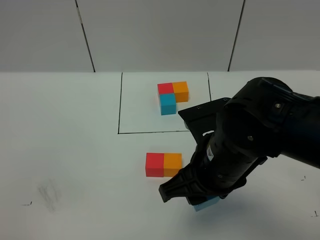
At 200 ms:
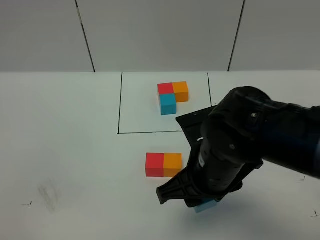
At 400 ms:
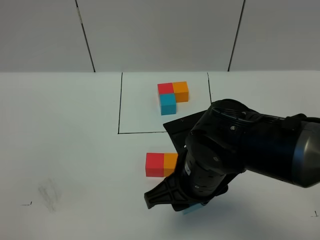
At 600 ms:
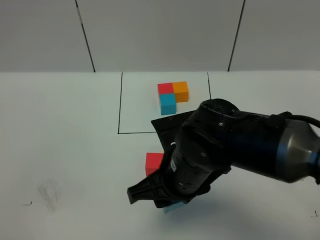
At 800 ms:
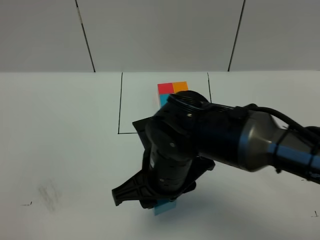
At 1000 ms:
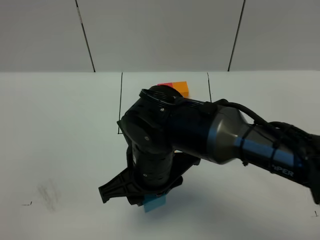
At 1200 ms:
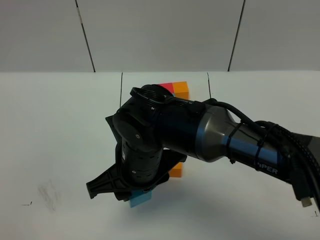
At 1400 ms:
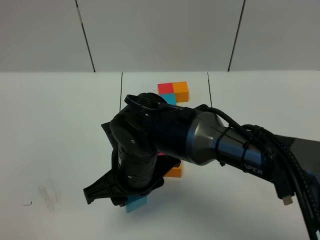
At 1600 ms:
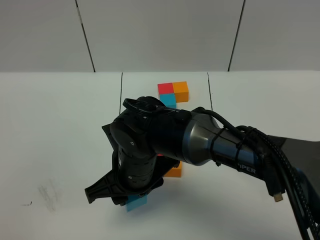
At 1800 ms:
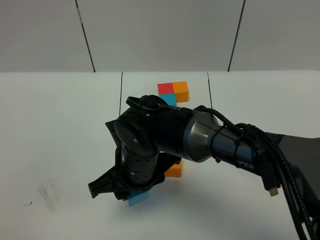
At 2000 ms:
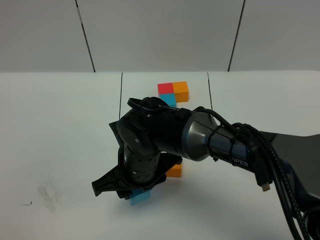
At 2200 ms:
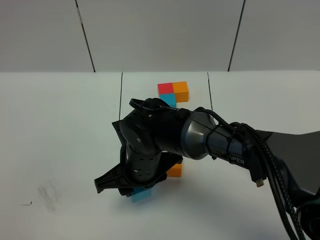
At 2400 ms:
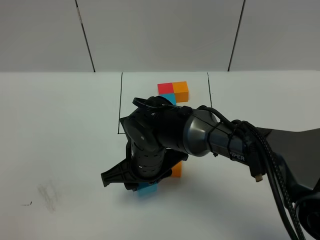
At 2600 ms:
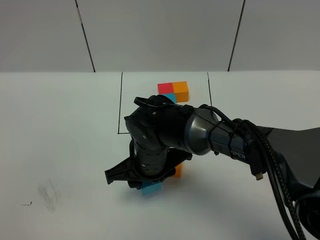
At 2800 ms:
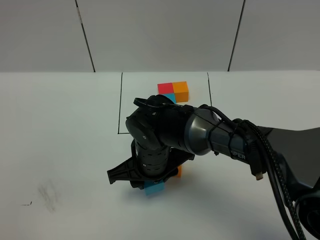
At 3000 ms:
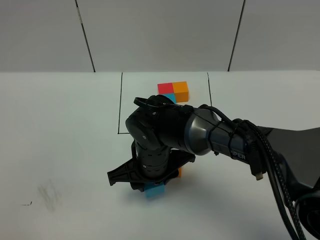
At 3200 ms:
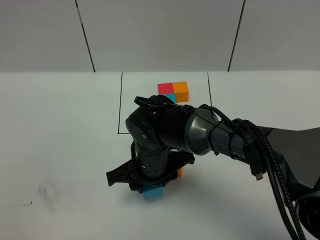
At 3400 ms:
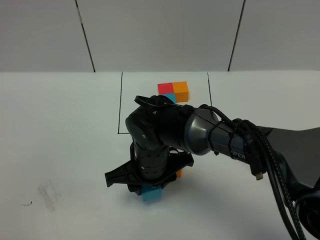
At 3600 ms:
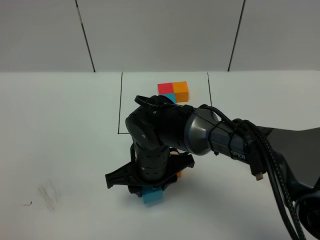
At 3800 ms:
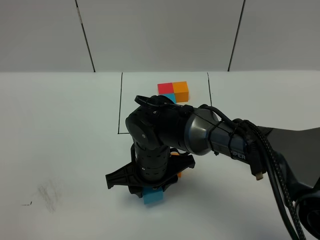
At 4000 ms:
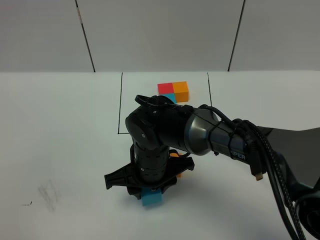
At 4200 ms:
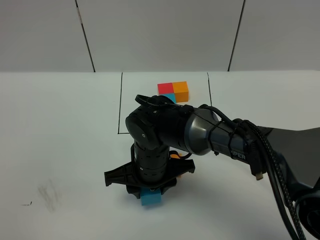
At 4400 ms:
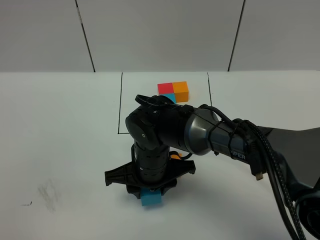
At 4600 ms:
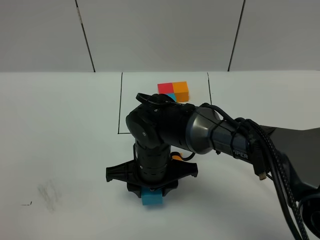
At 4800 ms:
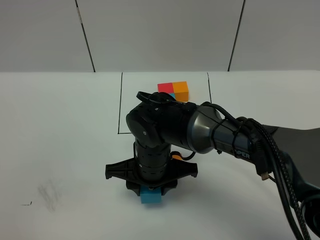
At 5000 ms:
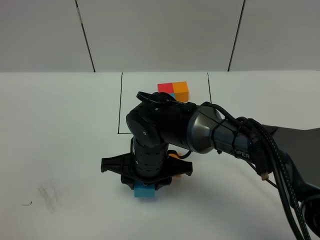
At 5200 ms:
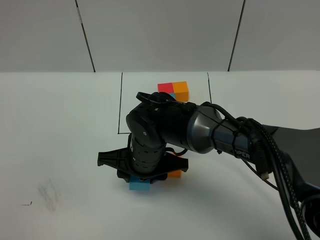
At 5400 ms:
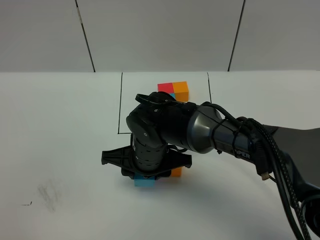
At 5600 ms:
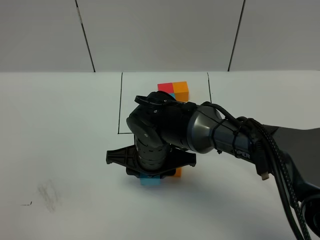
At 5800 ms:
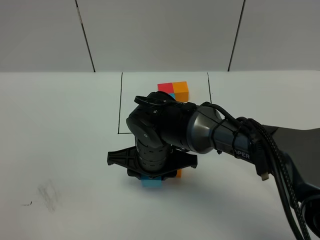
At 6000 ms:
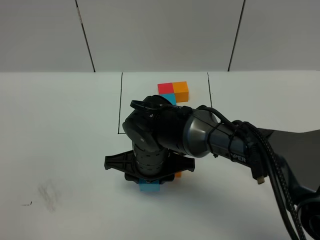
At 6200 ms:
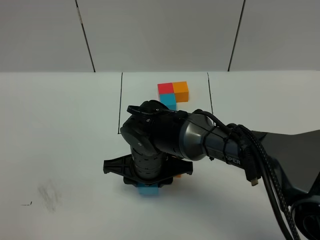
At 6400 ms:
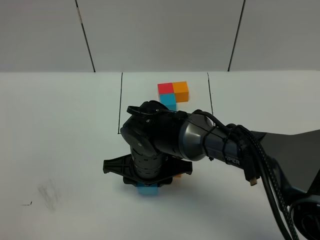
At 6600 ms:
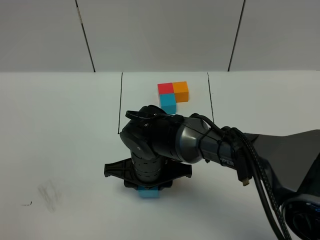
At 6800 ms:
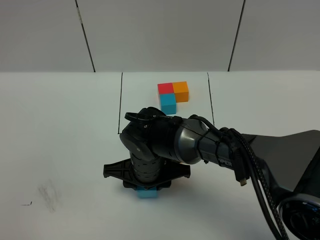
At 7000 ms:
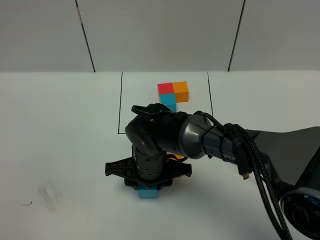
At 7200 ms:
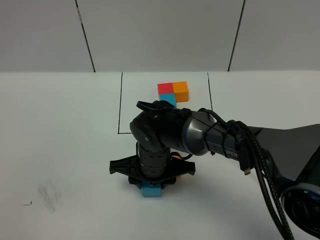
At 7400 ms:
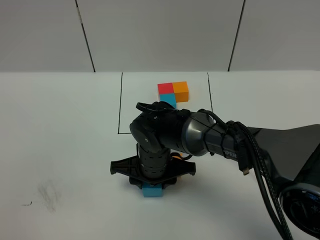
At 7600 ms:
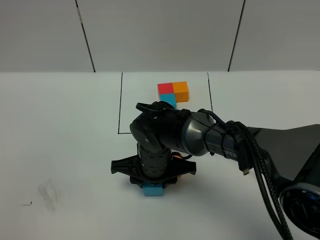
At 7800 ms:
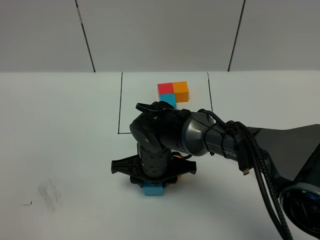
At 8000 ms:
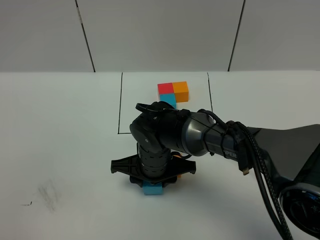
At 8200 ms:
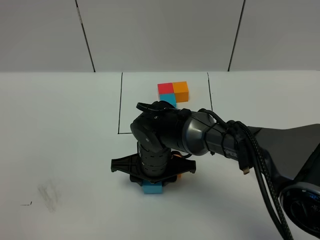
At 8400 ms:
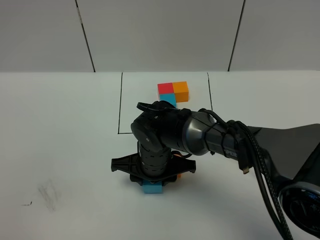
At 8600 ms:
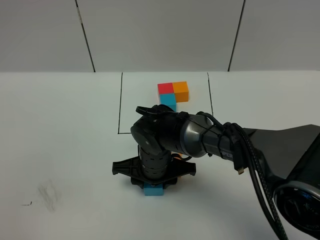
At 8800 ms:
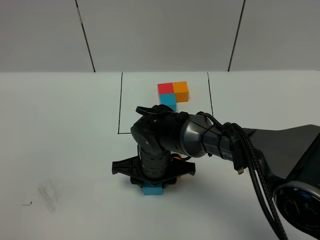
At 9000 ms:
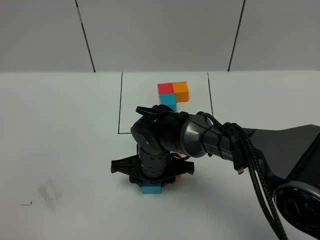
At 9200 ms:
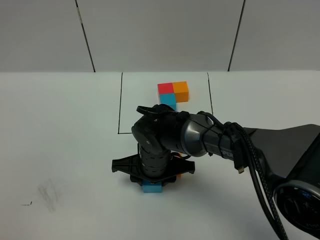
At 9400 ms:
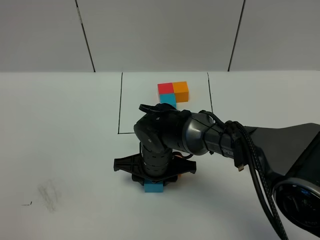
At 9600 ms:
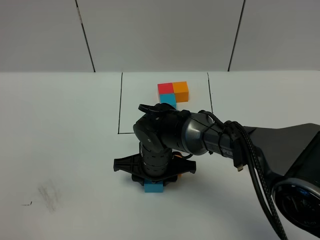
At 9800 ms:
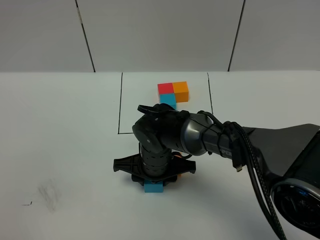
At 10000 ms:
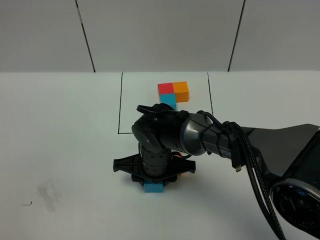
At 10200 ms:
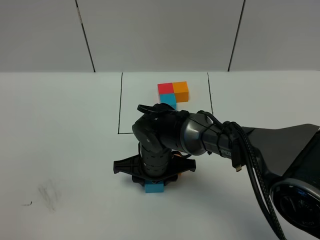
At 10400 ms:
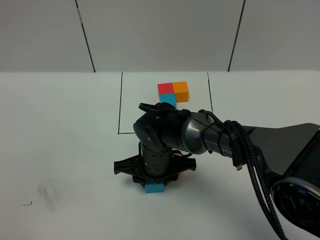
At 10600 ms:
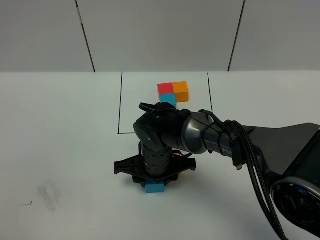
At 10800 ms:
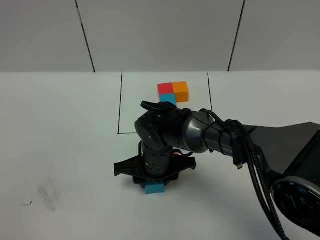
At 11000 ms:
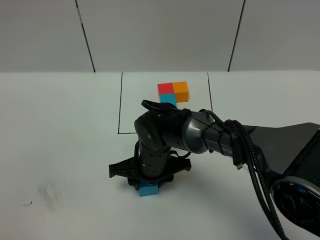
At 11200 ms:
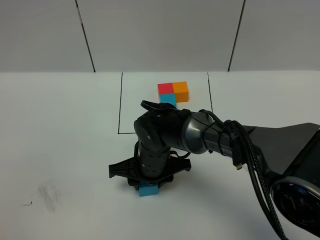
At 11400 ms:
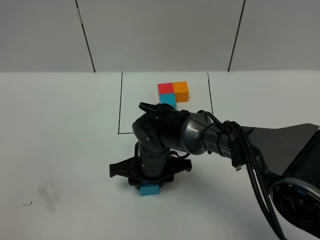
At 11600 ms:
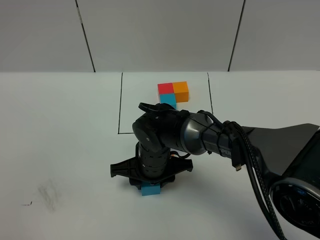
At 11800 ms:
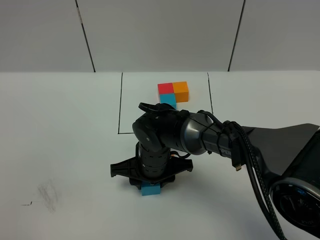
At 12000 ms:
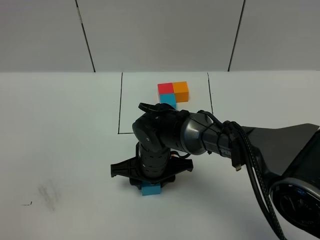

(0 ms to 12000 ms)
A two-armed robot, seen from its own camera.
Task of the whole recording: According to the building block template in front, assemble the scattered blocks together.
0 ms - 1600 ms: The right gripper goes about 15 cm to the left and downward.
1600 ms - 3000 ms: The right gripper changes place by approximately 5 cm.
3000 ms - 7600 ms: The grippers stay close to where they were, moving slightly.
7600 ms - 9000 ms: Neither gripper changes place.
9000 ms - 10400 ms: Both grippers stay put.
10400 ms - 12000 ms: The grippers make only small movements.

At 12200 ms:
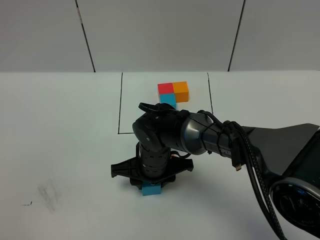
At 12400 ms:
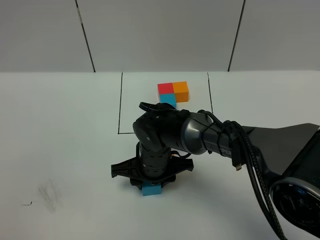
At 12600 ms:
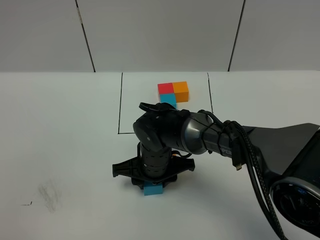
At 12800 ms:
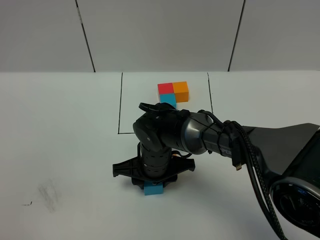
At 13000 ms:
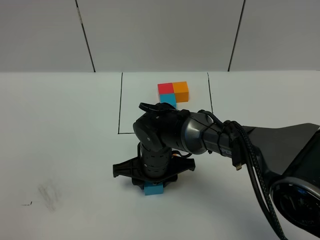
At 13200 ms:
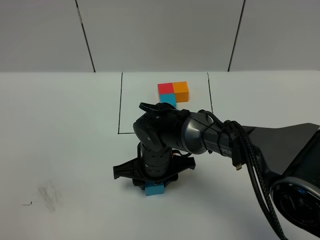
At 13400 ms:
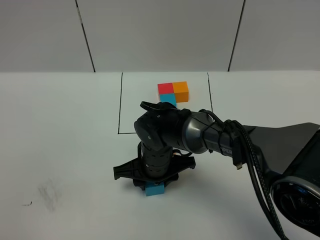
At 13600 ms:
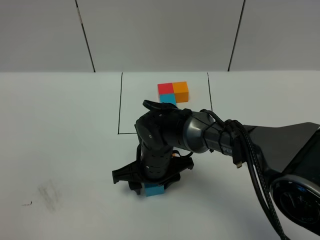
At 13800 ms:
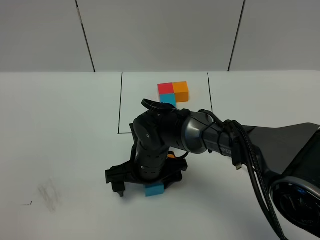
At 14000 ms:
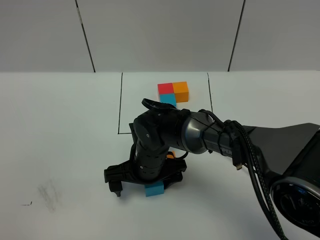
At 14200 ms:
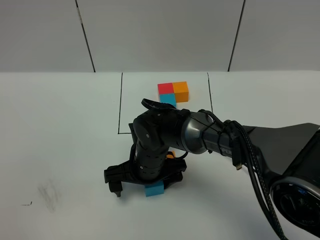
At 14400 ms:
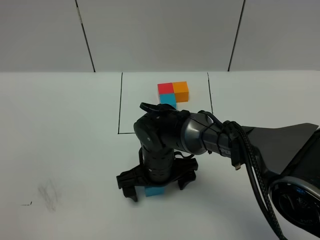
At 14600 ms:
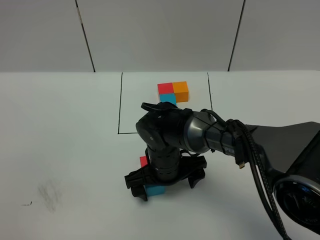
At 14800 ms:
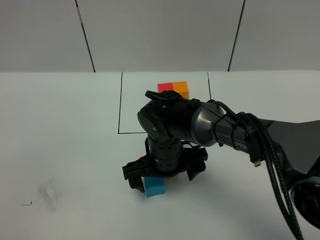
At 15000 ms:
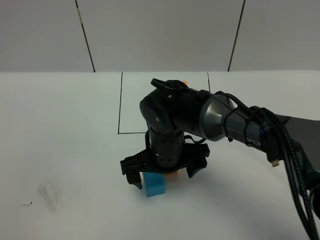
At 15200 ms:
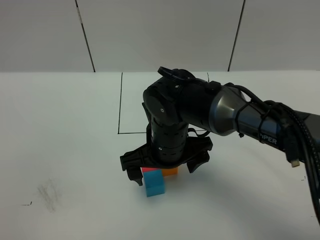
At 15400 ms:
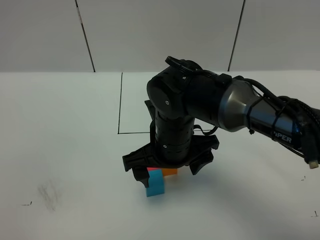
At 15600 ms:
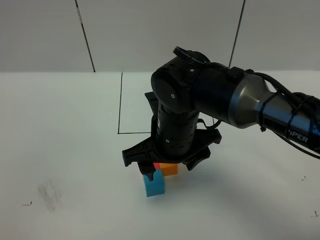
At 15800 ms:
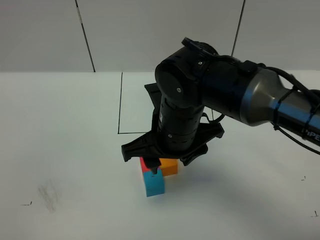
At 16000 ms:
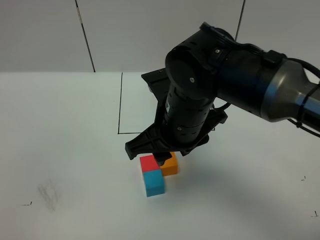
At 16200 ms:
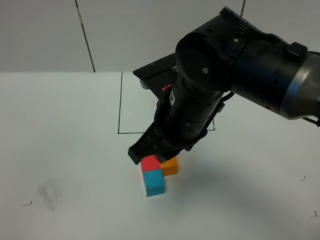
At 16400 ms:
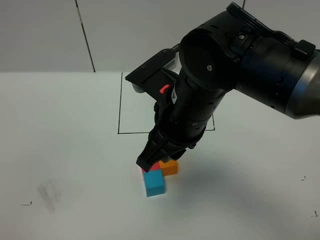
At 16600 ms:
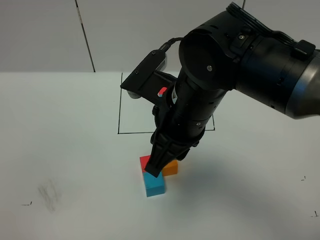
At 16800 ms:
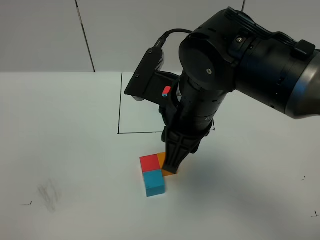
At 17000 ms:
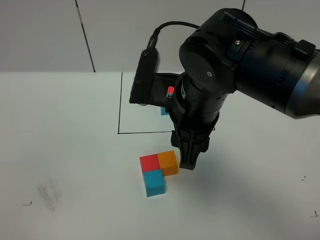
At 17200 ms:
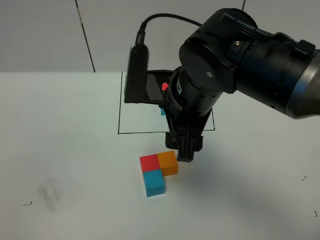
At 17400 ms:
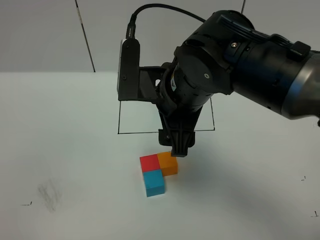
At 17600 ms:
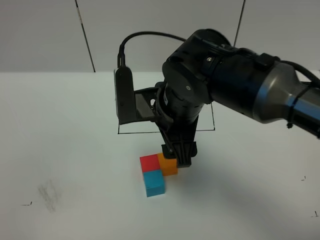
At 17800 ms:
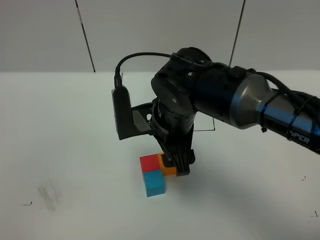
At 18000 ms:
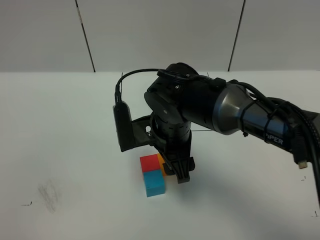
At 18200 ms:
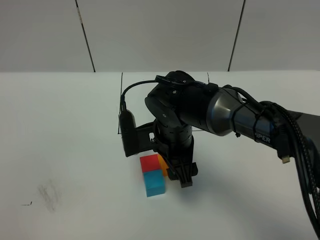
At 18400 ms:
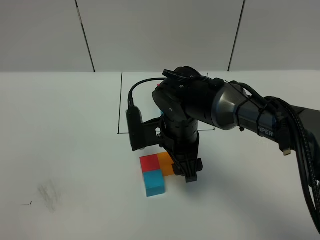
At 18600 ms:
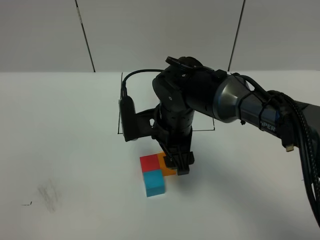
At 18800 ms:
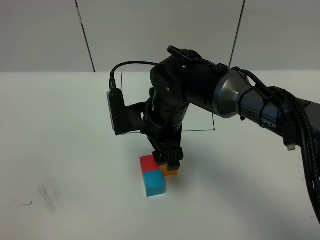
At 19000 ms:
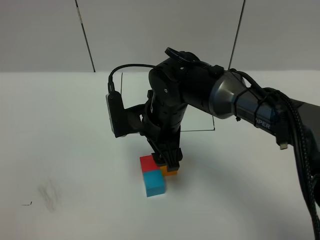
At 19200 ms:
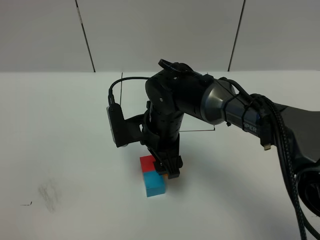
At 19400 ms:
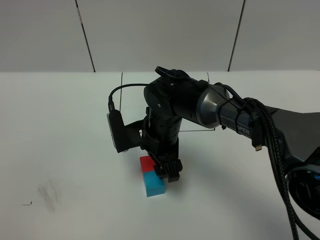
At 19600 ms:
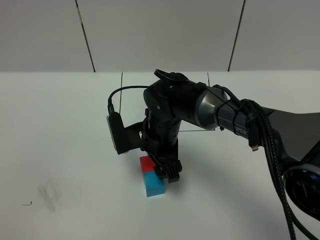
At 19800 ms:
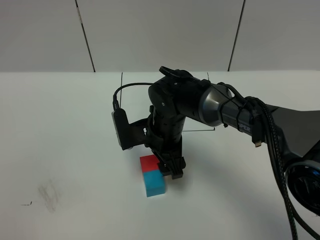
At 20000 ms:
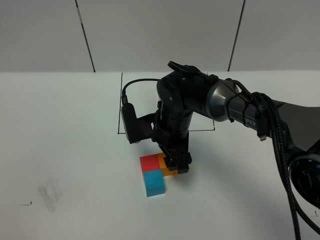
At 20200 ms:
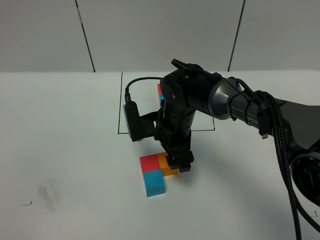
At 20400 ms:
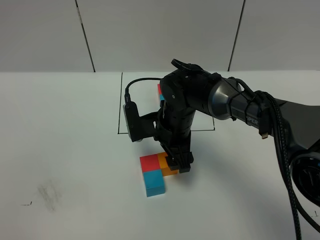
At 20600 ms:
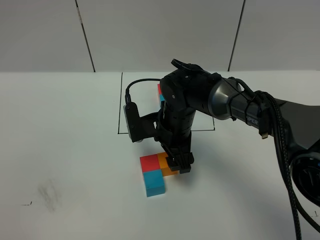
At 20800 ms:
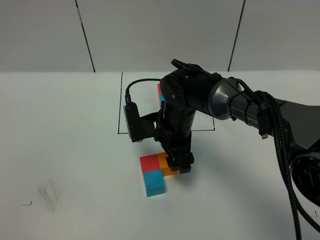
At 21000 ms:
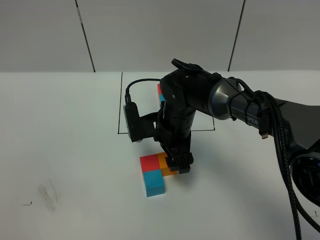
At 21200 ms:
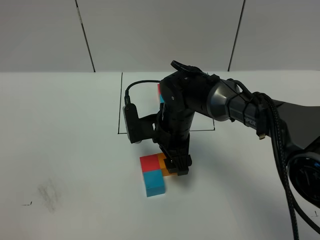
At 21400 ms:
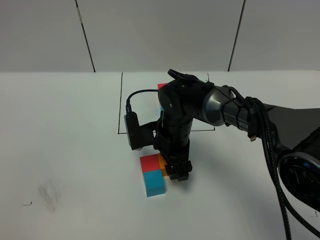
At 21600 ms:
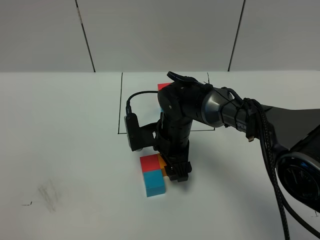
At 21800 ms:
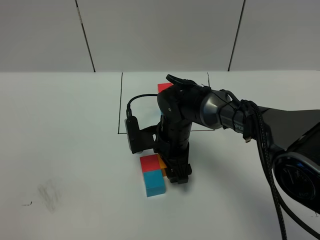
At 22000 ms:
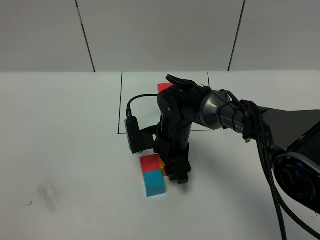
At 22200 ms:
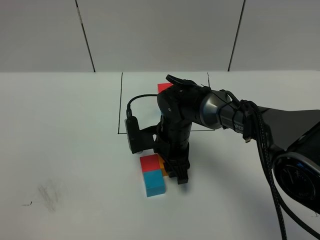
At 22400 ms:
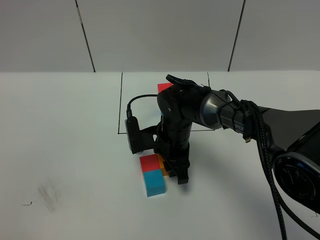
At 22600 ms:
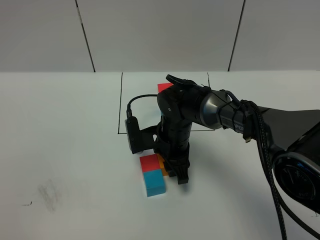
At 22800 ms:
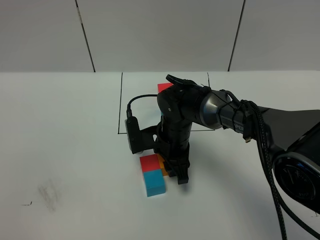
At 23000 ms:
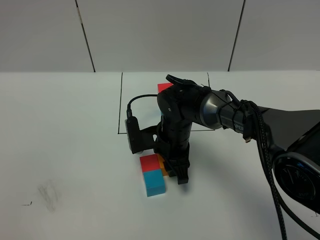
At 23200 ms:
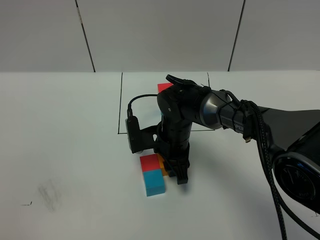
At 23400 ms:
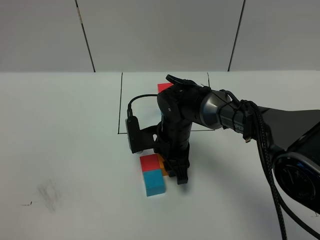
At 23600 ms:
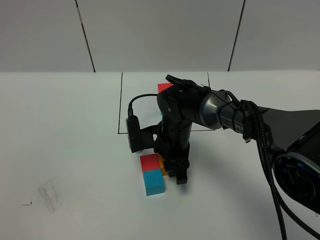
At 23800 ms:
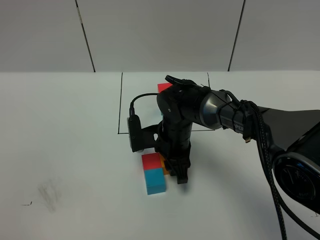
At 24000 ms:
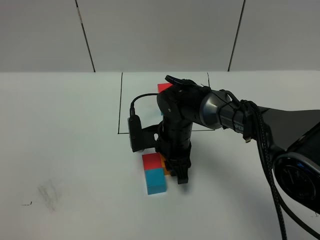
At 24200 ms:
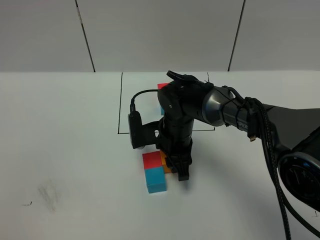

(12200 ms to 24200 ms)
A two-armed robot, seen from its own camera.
Task of the whole recording: According to the building block template in front, assemble the scattered blocks together.
Step, 12200 ms - 16600 ms: Put the blue cube on the behind of the red cube.
12200 ms - 13800 ms: The right gripper opens.
13800 ms - 15200 ms: The right gripper travels upward by about 10 cm.
15200 ms - 16600 ms: The right gripper moves upward, about 10 cm, and closes its fingers.
16600 ms - 18200 ms: The right gripper moves downward and forward, about 15 cm, and opens its fingers.
18200 ms - 21200 ms: The grippers make only small movements.
21200 ms - 22600 ms: The right gripper closes.
22600 ms - 24200 ms: The grippers move only a little.
